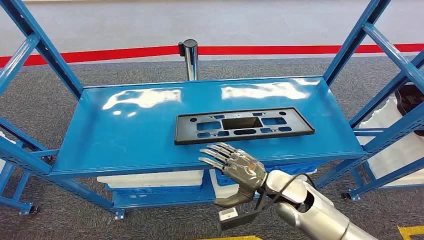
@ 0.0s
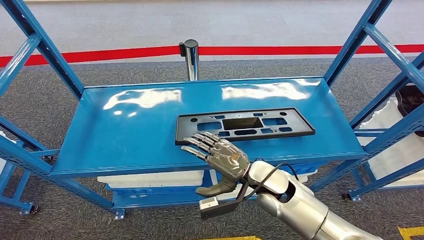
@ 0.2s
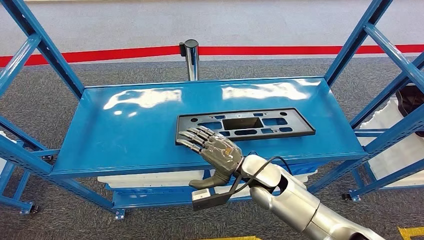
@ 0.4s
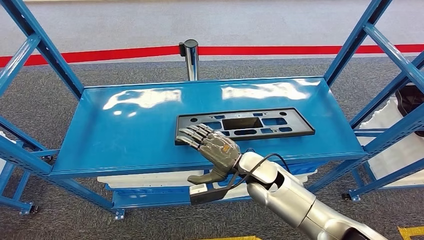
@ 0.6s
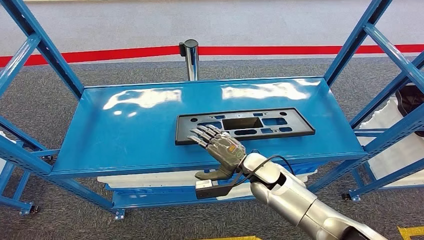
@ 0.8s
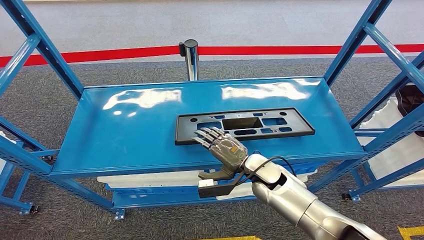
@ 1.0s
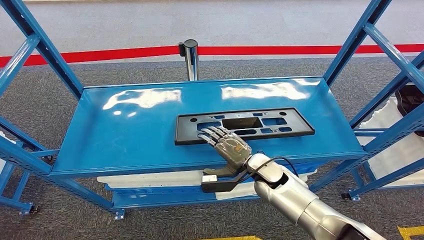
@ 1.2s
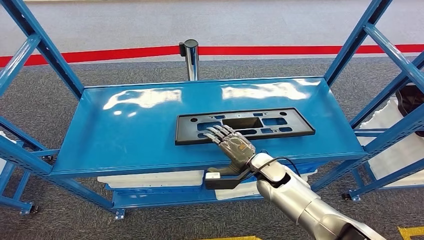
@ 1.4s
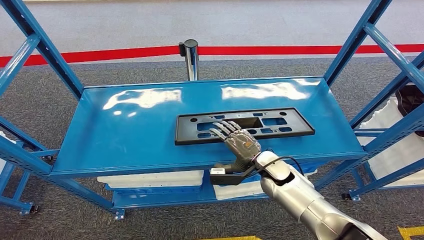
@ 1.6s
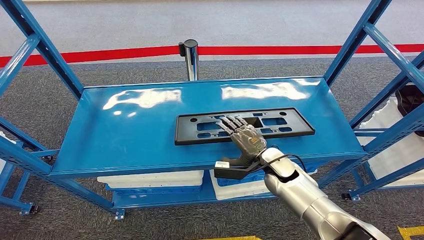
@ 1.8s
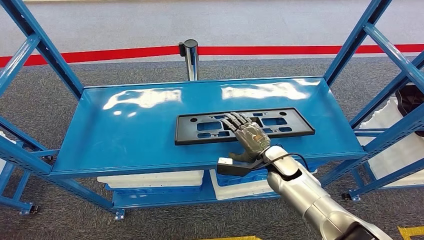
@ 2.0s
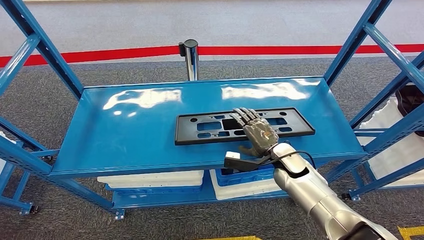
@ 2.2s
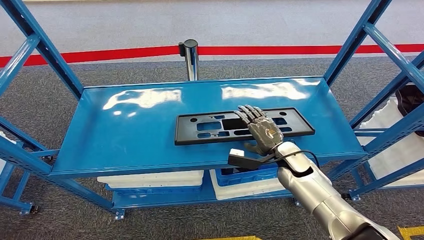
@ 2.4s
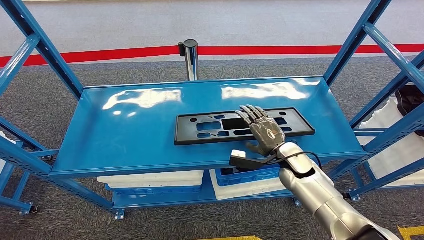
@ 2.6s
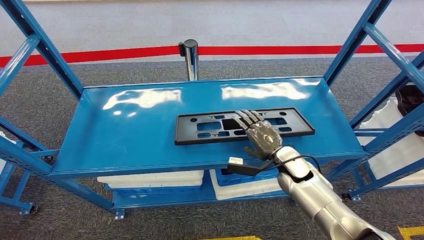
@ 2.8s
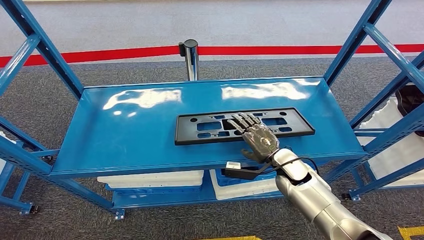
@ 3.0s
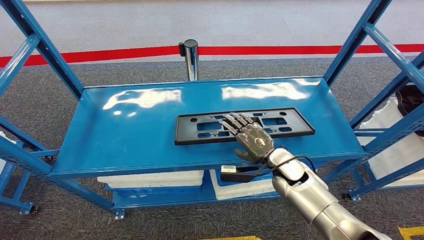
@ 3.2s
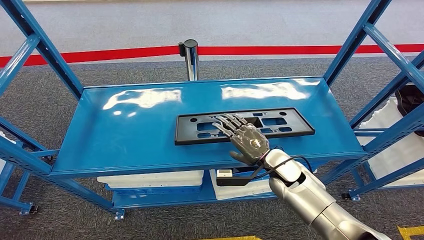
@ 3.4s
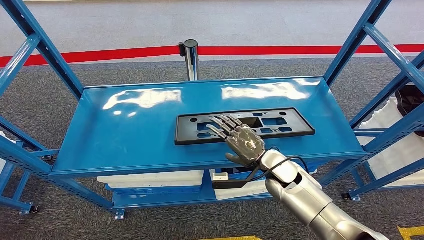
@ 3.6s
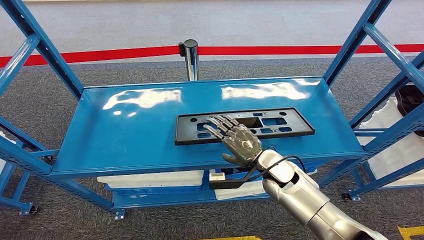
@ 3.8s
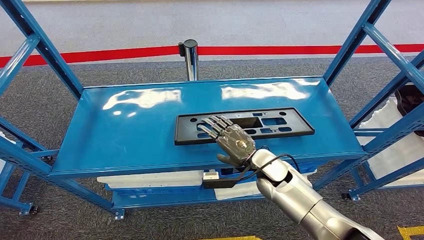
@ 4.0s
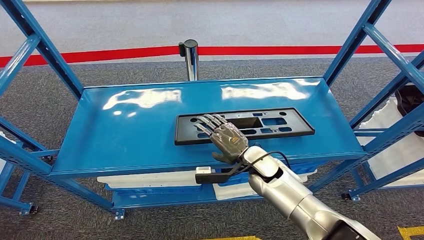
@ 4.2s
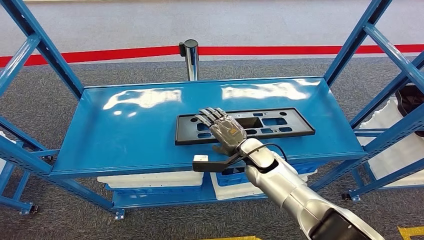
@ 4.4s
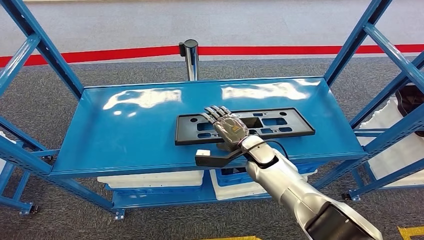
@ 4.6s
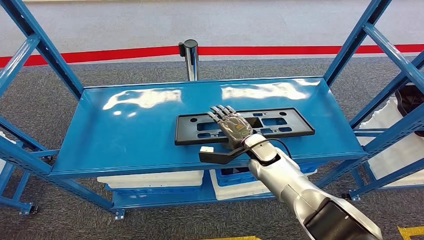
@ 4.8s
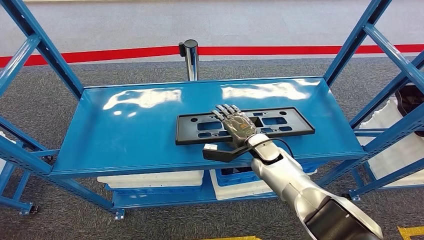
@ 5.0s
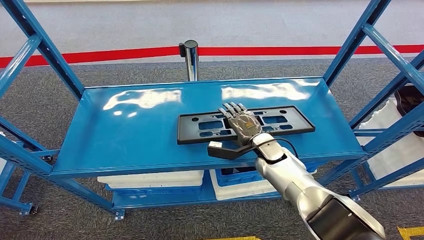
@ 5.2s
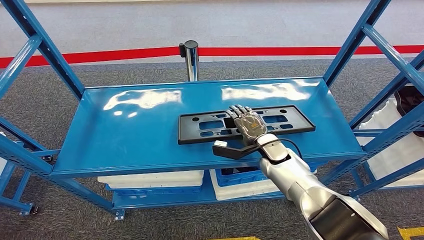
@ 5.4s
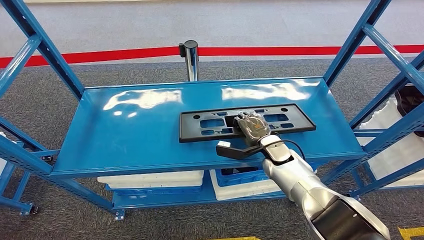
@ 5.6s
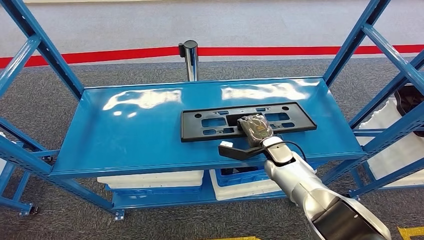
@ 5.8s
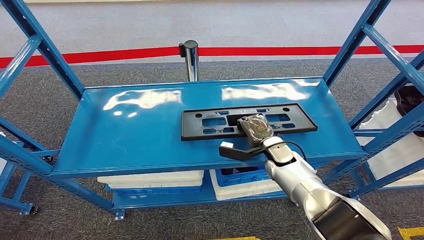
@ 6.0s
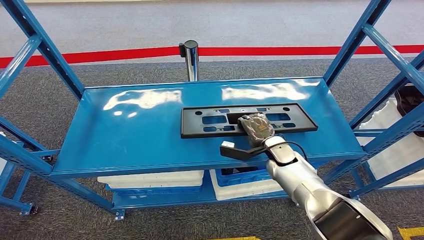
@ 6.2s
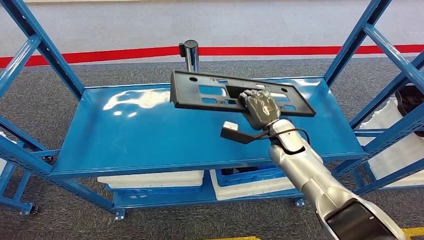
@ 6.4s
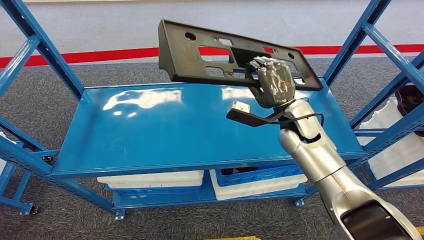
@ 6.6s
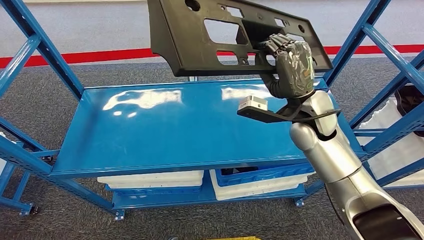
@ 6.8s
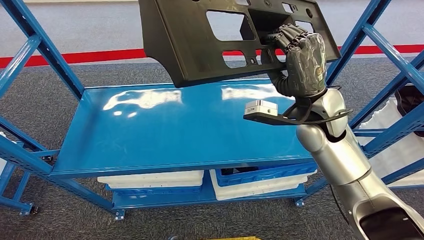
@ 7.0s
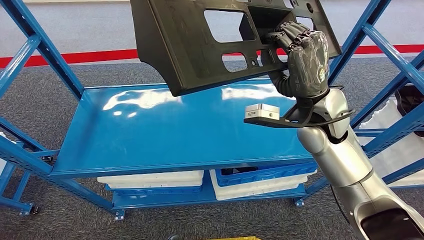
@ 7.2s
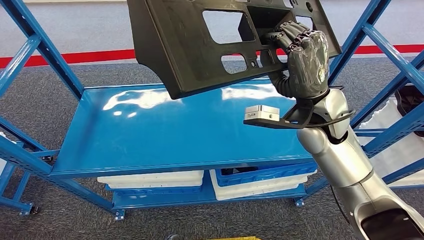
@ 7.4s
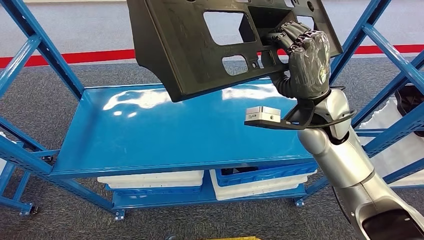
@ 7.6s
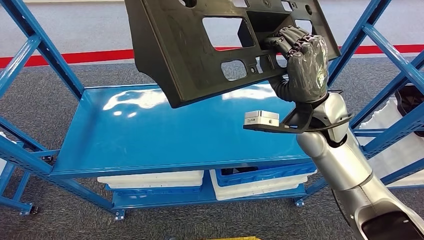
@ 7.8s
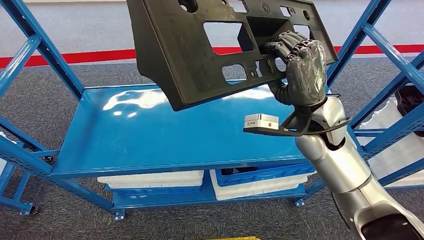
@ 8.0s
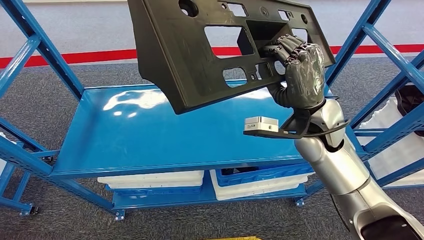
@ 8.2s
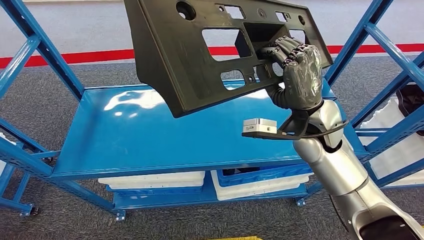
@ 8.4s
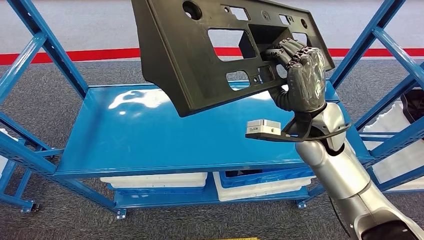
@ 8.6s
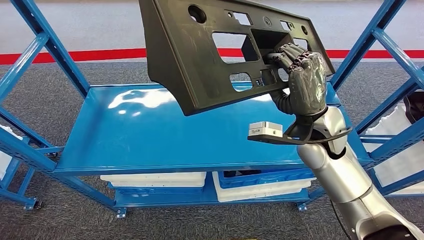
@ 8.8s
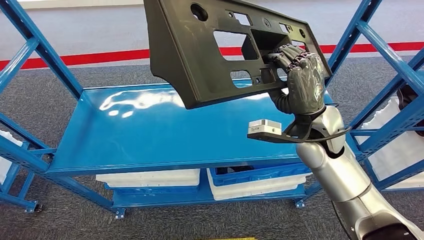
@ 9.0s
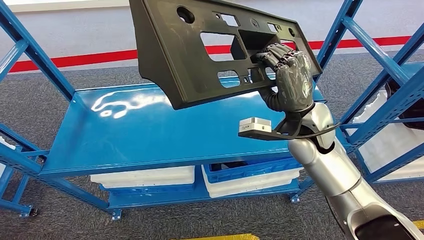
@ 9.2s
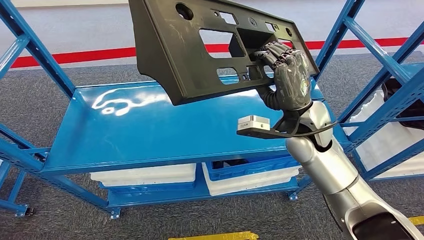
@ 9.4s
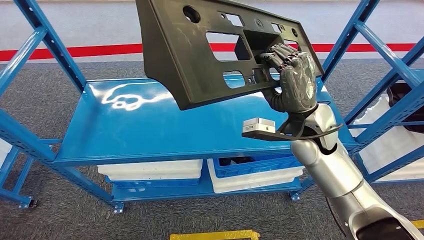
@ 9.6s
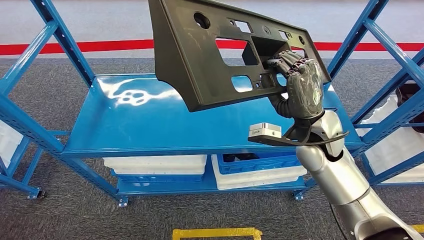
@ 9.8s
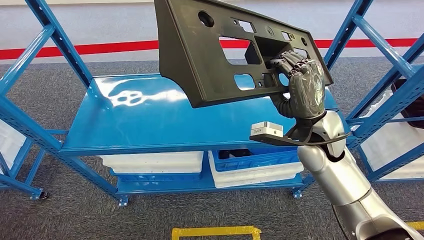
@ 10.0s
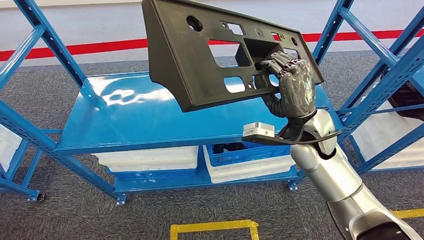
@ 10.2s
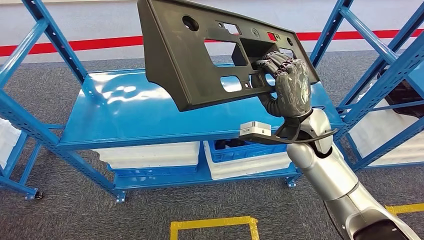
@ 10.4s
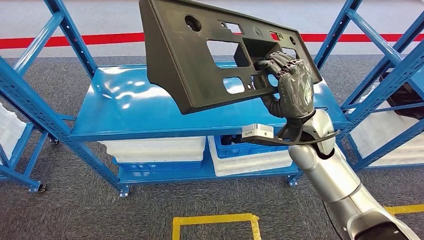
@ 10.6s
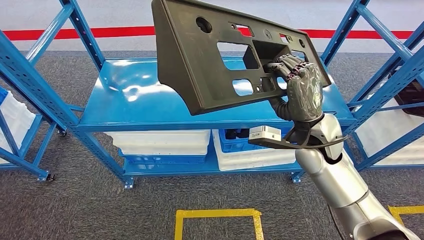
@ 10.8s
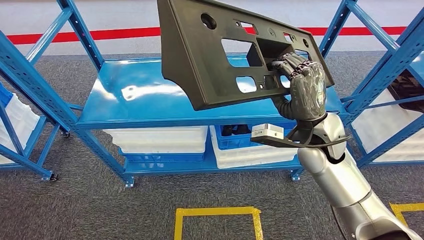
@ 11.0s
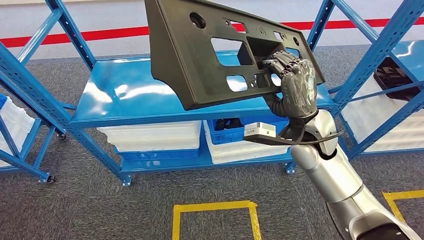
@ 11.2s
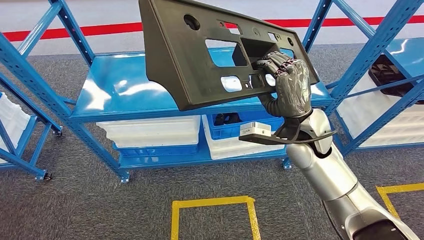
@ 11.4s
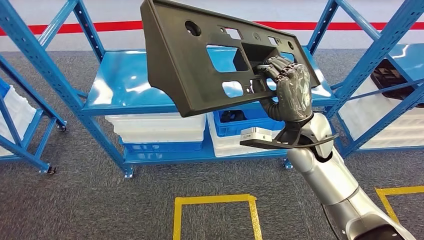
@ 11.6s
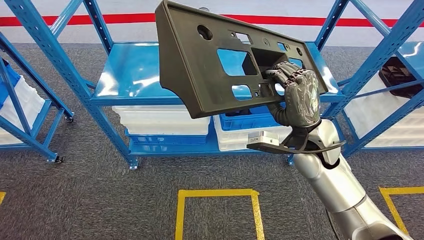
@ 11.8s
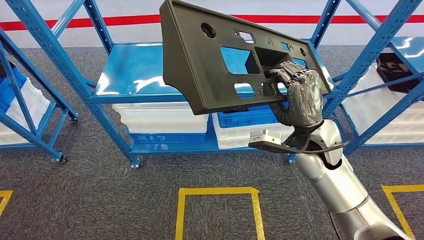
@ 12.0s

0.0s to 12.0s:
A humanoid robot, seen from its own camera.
Step, 0.0s to 7.2s: Pick up the large material from the shelf.
1.6s to 3.0s: The right hand ends up approximately 5 cm from where it was.
3.0s to 4.4s: The right hand shifts roughly 10 cm to the left.
4.4s to 6.0s: The right hand goes some 5 cm to the right.

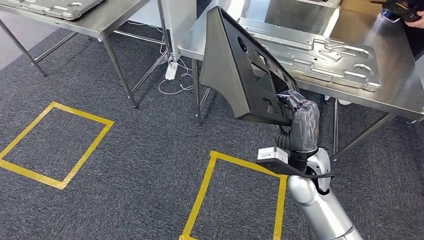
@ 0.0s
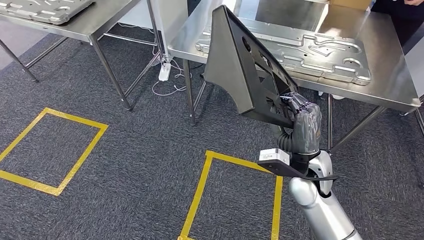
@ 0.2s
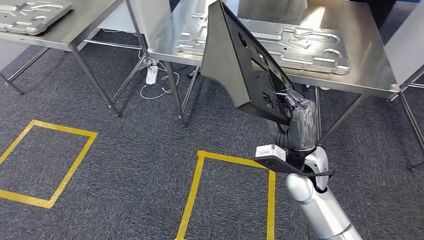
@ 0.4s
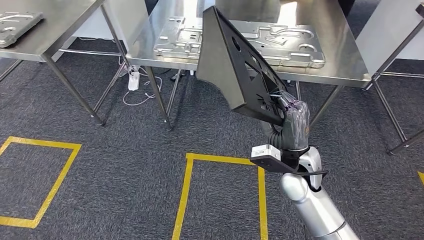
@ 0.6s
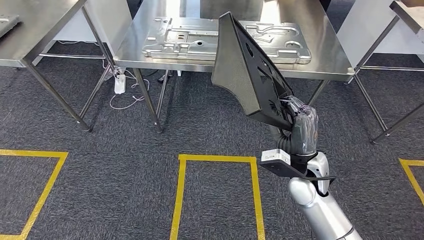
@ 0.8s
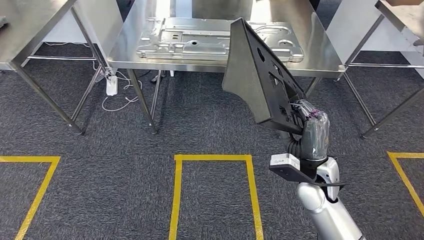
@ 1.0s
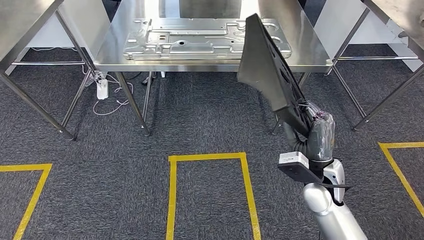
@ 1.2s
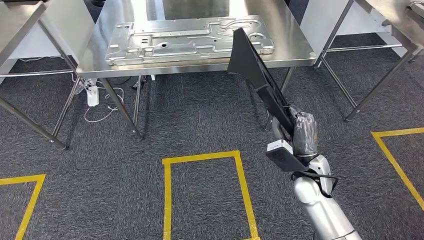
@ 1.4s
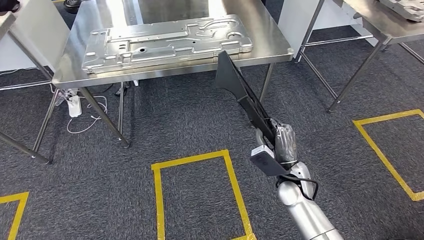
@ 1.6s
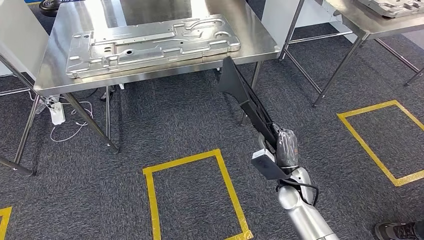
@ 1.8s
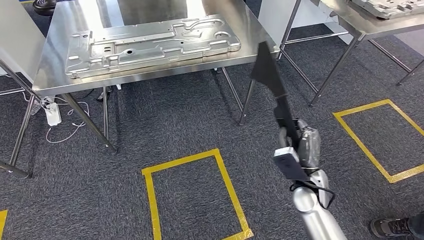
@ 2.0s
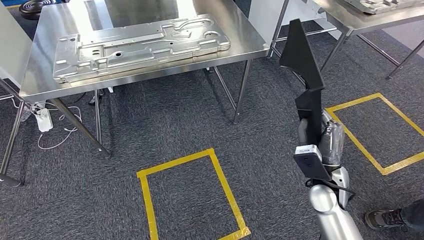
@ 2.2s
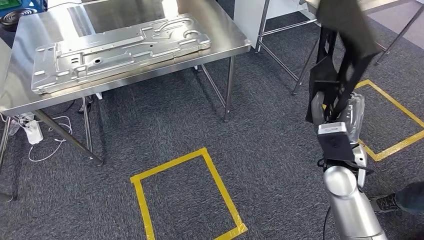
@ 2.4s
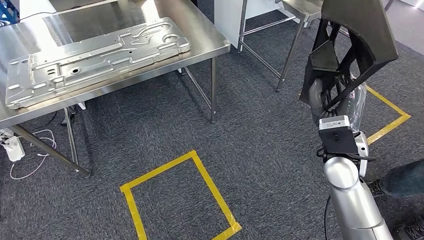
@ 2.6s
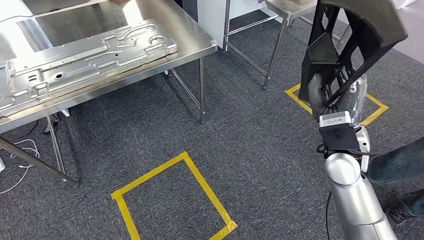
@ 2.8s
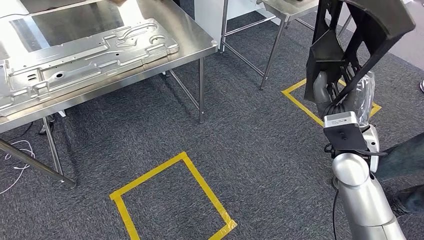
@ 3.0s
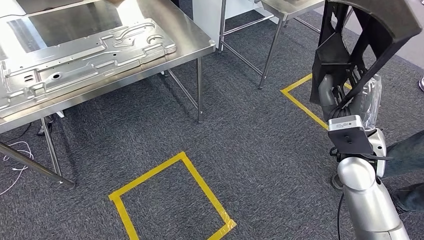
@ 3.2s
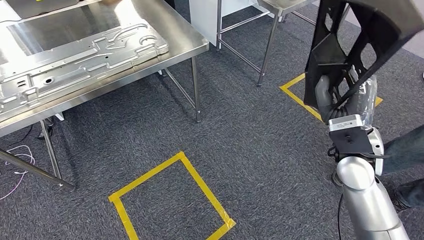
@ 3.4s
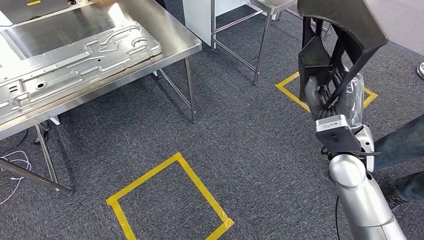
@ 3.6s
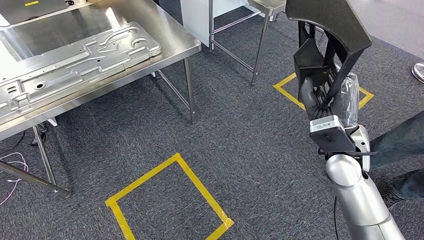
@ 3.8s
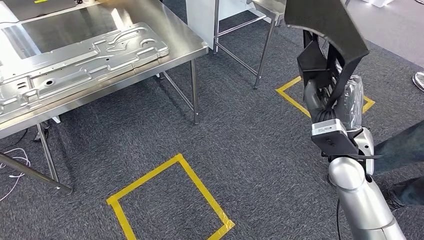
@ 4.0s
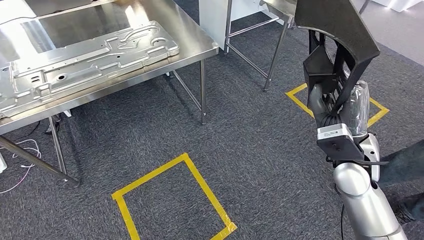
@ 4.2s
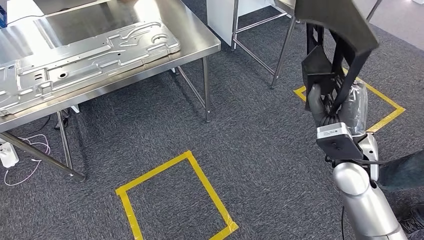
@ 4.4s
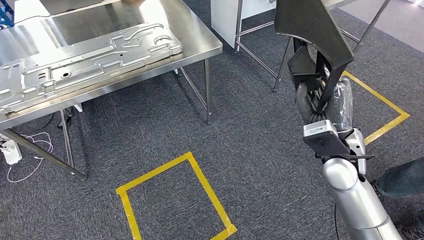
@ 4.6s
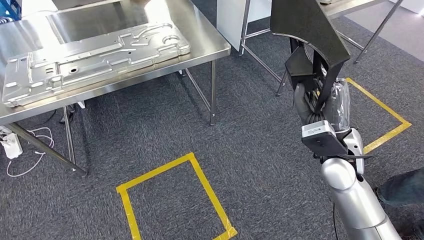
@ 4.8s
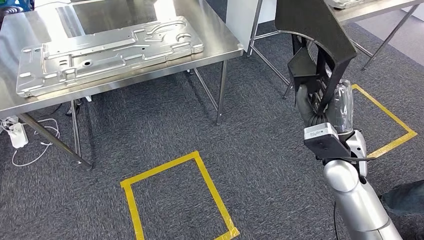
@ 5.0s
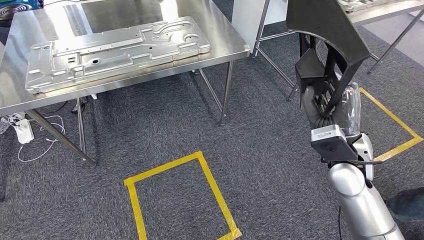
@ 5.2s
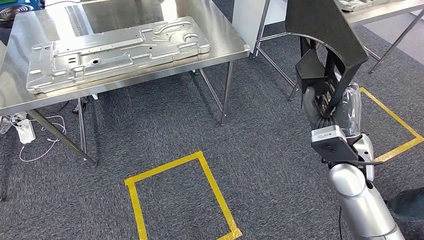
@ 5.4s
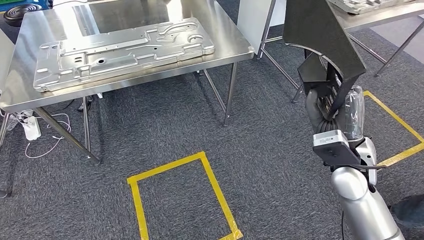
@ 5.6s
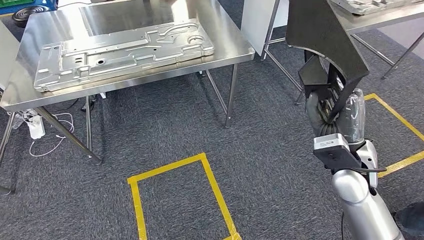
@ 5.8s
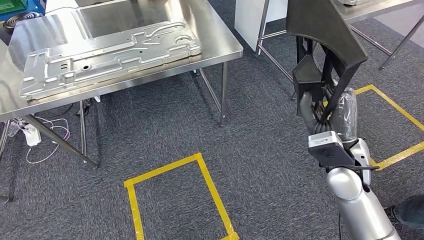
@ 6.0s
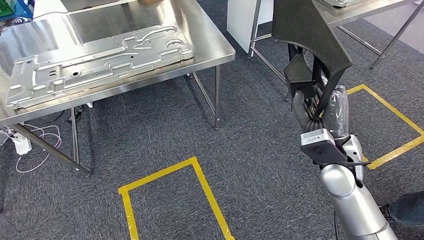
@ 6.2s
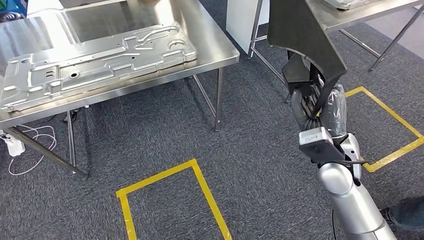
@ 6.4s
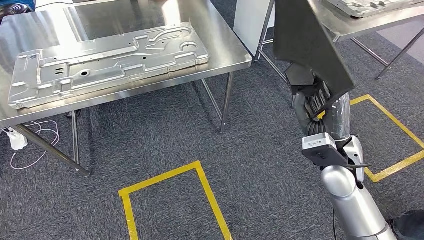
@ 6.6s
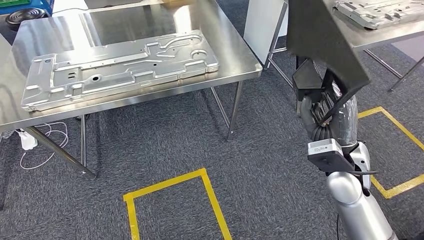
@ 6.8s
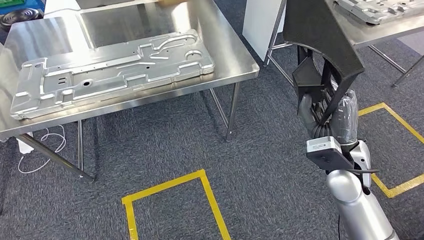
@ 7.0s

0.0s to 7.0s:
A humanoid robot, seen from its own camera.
Step, 0.0s to 5.8s: Move the large material to the front of the workbench.
